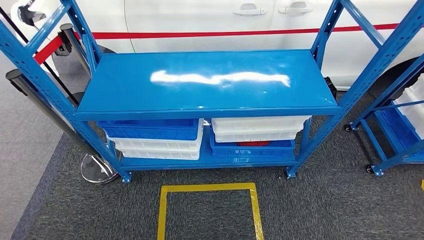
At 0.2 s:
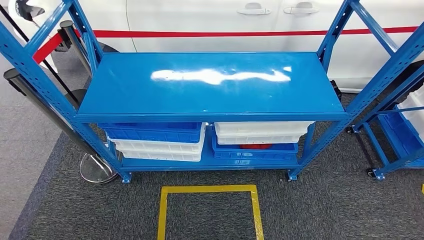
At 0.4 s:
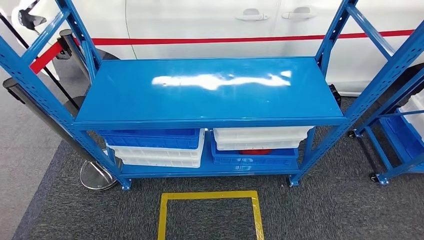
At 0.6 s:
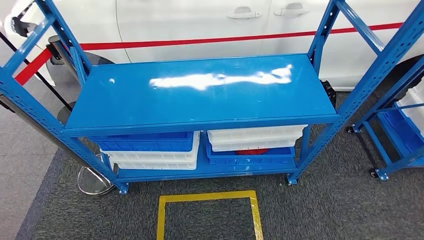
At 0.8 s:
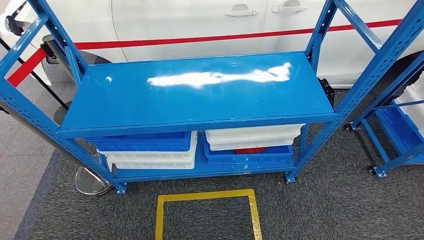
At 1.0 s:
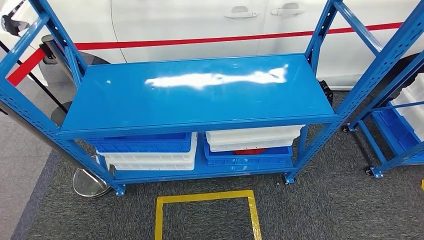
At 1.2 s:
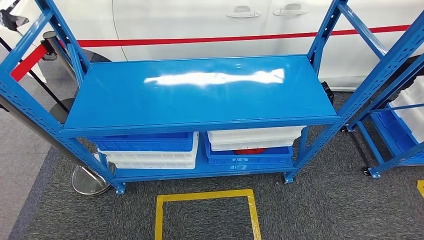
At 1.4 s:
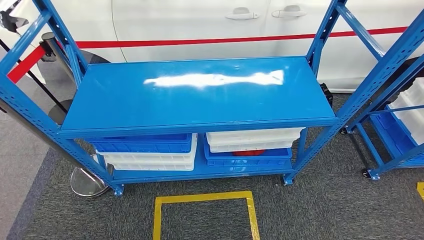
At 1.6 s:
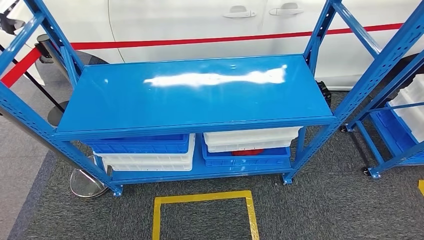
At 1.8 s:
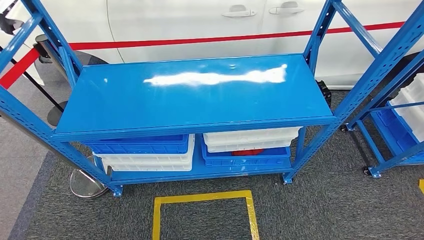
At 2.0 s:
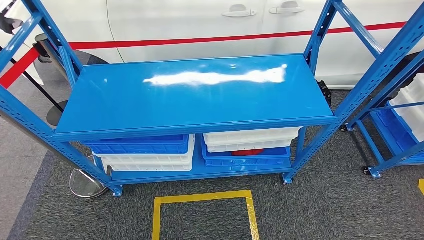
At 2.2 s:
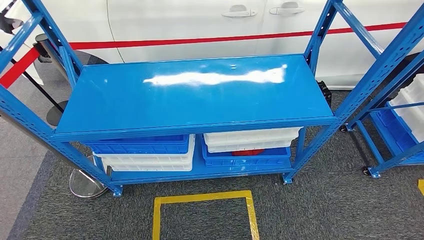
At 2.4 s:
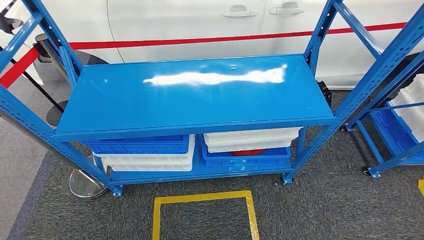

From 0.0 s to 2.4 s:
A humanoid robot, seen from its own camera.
Step, from 0.0 s to 2.4 s: Move to the initial position of the shelf.
From 1.2 s to 2.4 s: There are only small adjustments of the hands.
